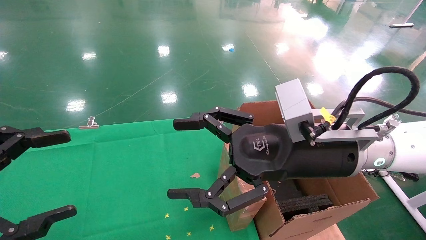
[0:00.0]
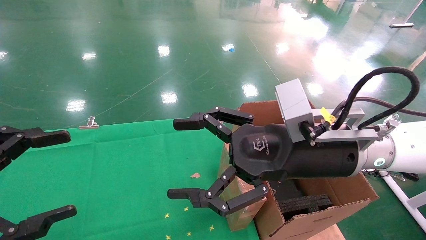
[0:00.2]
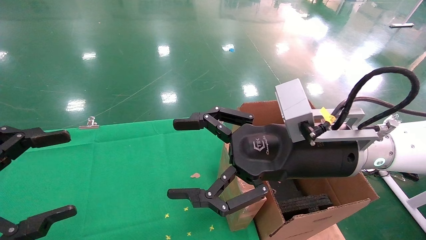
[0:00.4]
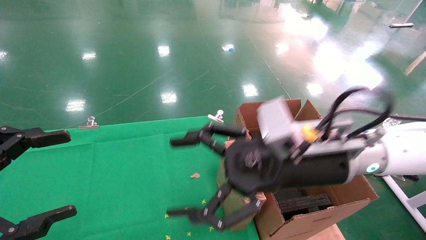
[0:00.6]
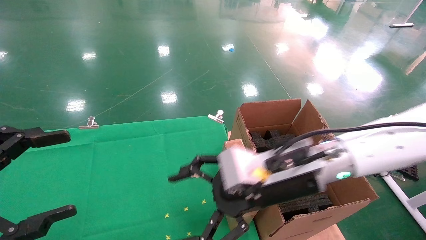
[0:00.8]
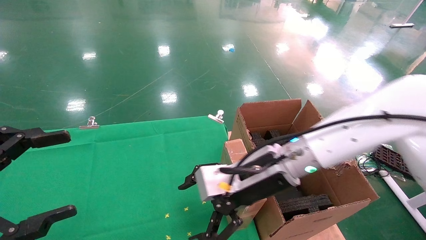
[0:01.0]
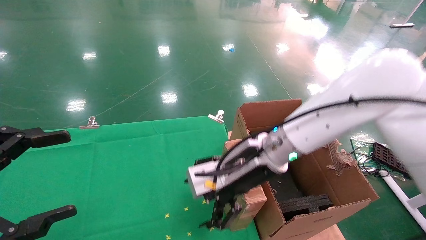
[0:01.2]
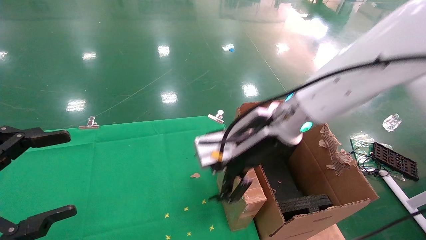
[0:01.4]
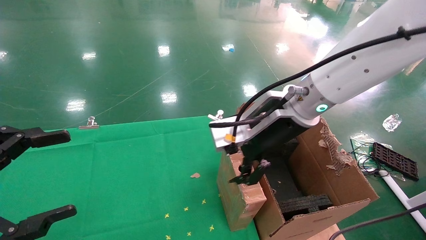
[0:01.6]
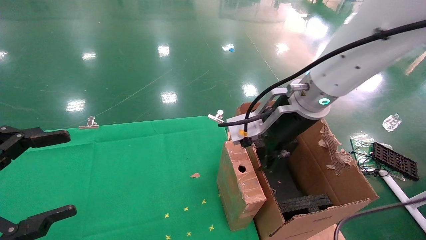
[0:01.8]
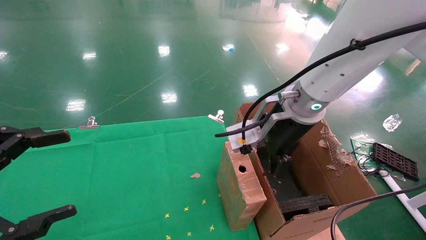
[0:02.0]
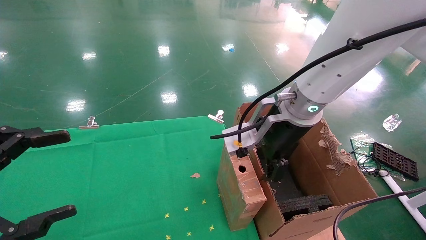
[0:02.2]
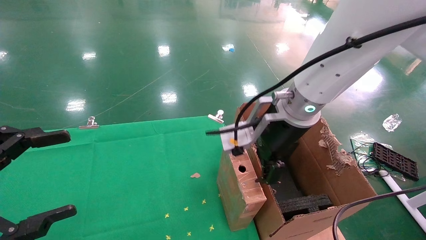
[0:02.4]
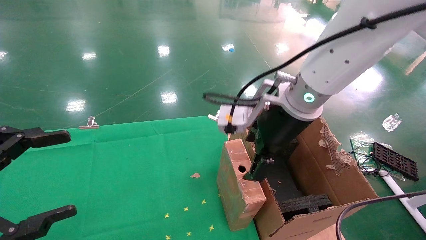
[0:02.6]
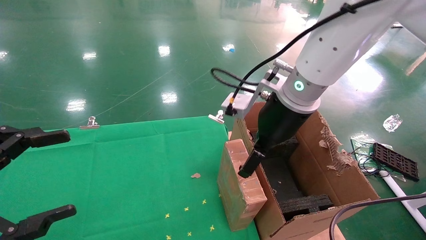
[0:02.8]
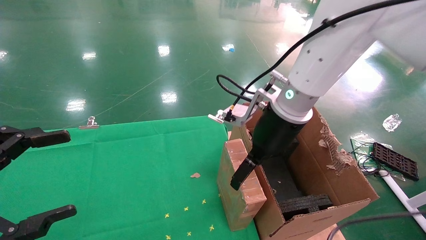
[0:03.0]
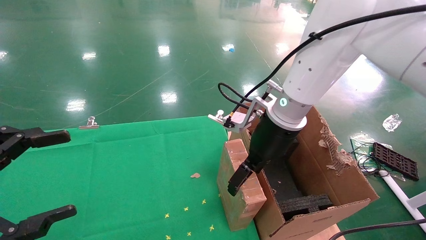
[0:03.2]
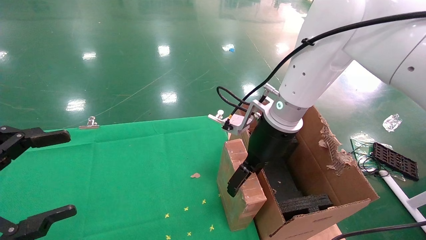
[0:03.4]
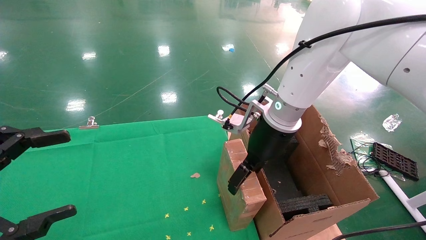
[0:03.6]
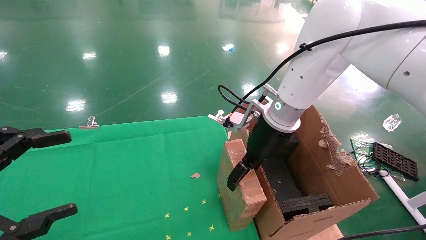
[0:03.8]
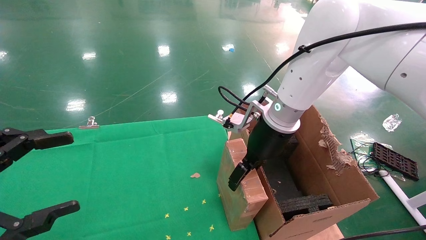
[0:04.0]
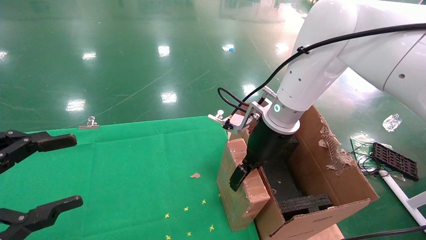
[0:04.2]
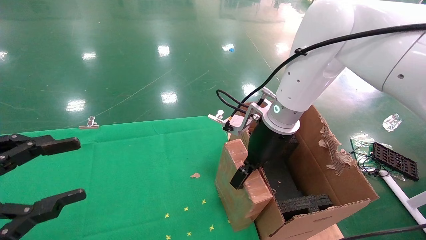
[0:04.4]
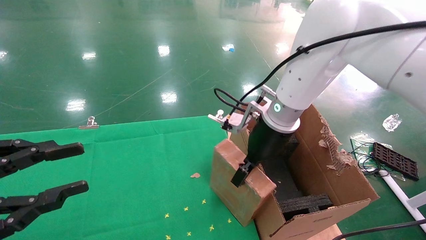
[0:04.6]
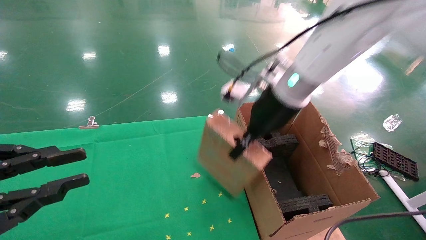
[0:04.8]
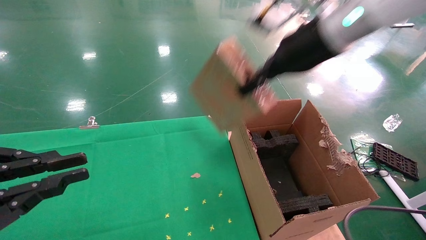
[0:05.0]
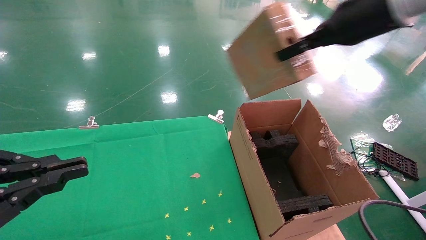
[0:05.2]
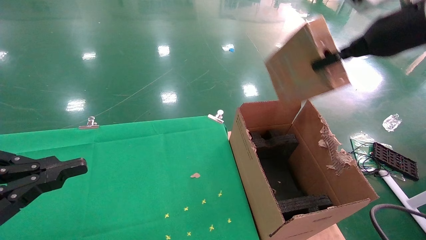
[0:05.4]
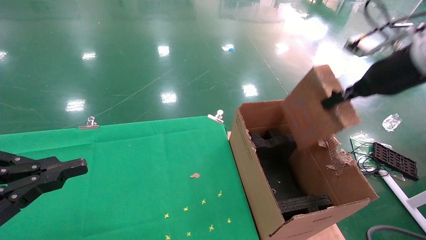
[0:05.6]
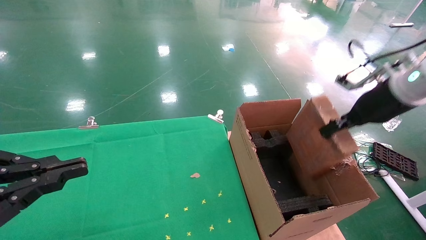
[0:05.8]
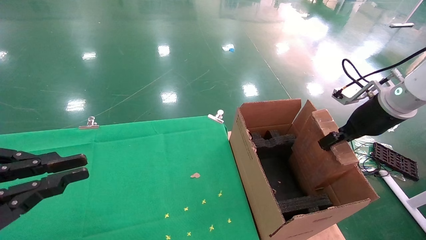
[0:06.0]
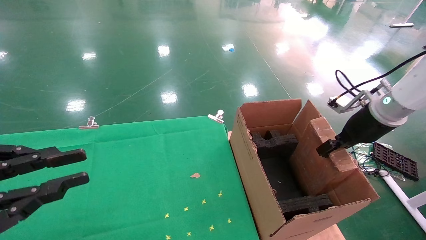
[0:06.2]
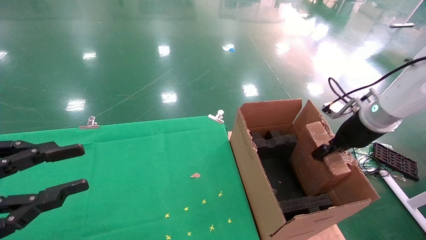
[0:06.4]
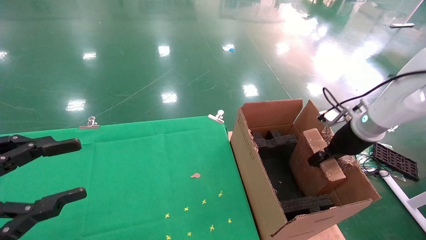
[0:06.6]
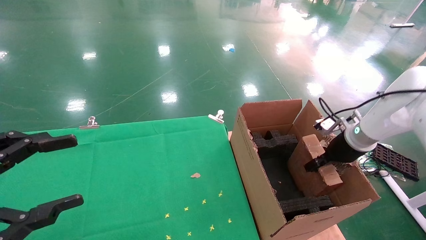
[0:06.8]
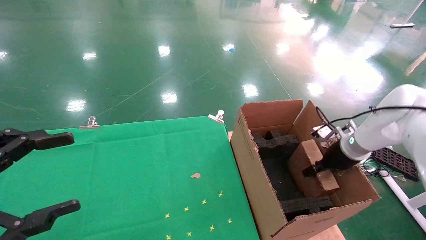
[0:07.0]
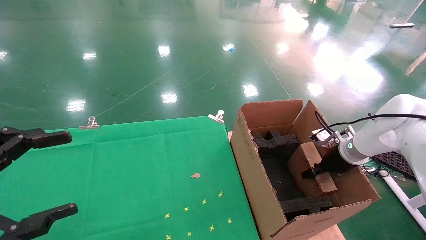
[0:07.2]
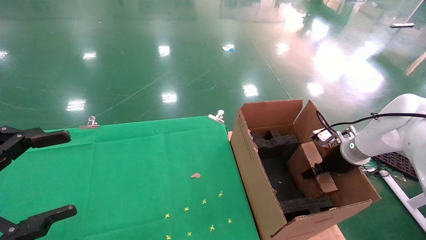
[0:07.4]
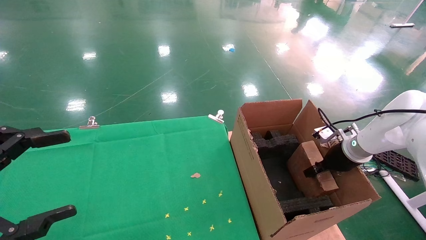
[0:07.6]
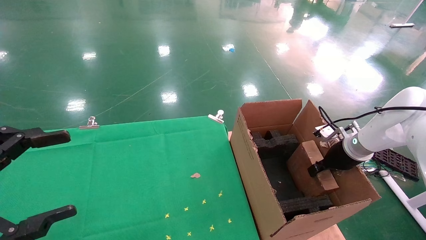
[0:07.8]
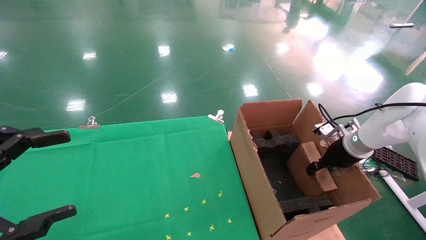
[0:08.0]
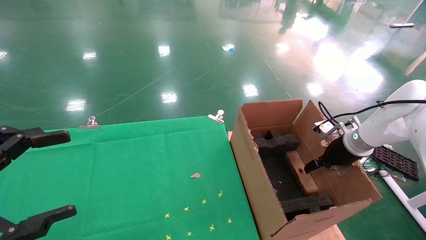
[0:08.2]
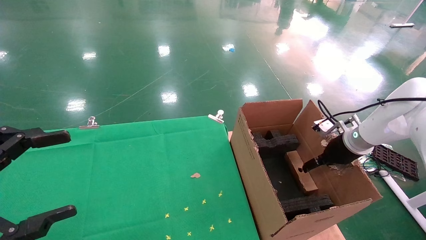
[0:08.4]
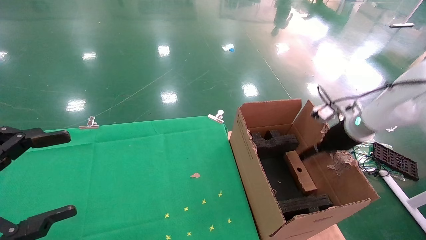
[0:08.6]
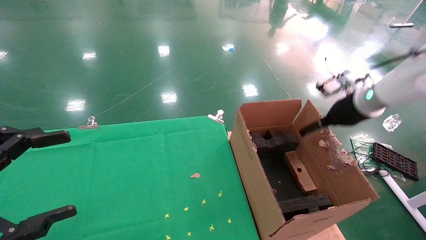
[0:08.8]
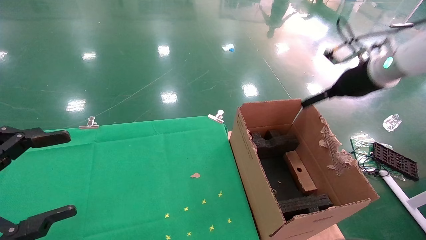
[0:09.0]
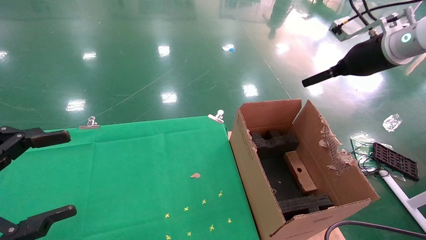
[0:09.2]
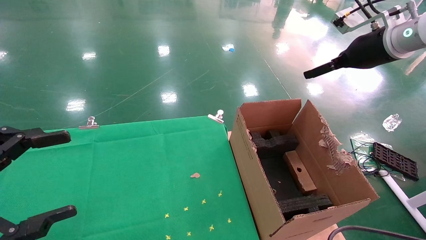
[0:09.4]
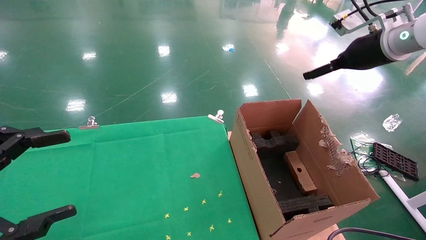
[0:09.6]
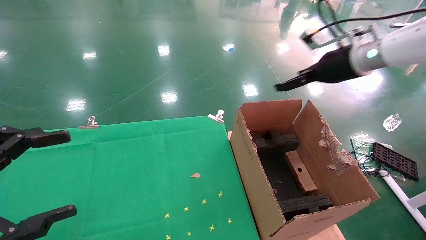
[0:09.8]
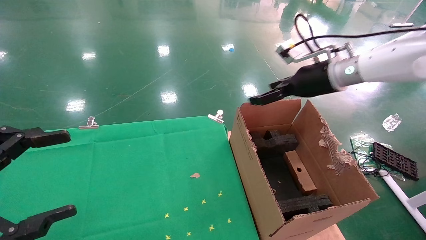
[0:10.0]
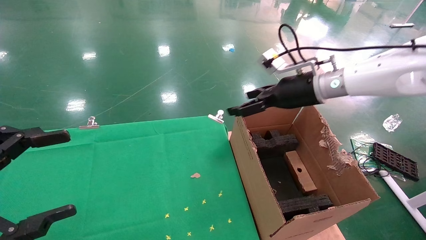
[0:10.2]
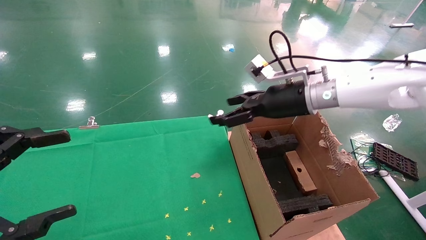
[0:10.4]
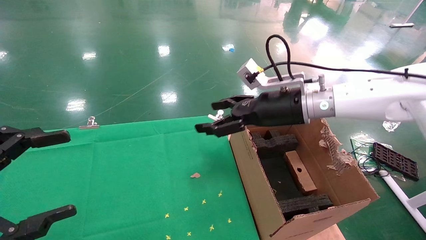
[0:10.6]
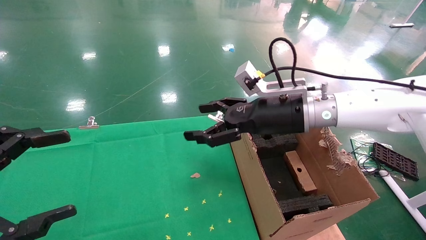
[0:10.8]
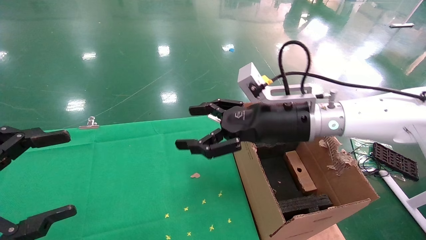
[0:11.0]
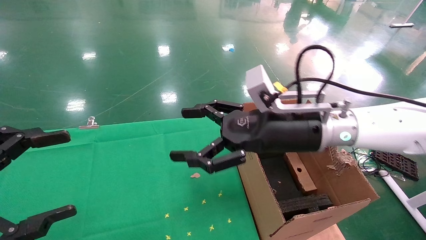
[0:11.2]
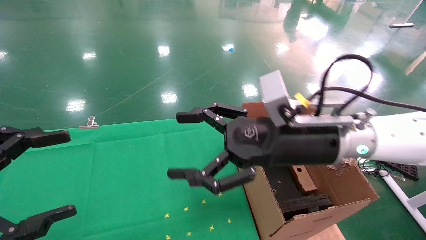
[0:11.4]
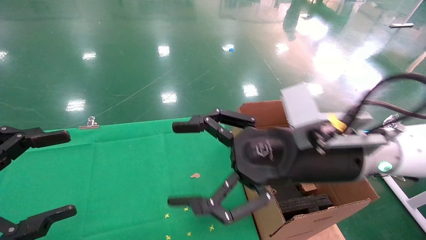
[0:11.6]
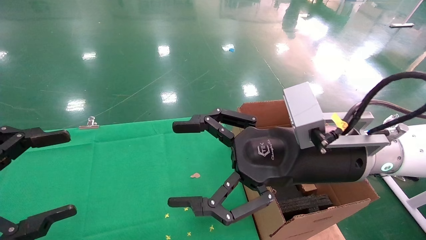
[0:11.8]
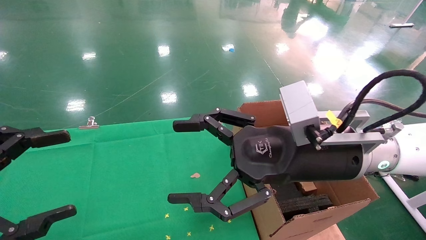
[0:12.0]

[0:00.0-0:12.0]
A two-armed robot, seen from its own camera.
Task of the whole recording: using a robotic arm to pick up a cardboard box and palace it the carton.
Step, 0:00.6 to 0:04.8: Pick up the mouse and the power cord paper box.
Step, 0:05.0 to 0:08.4: Place the mouse and the power cord paper box into the container.
0:00.0 to 0:01.6: The right gripper moves forward, about 10 cm.
0:03.0 to 0:04.4: The right gripper closes its fingers.
0:04.4 to 0:06.0: The left gripper closes up, while the right gripper shifts roughly 25 cm to the right, and closes up.
0:06.0 to 0:07.6: The left gripper opens, while the right gripper is displaced downward by approximately 15 cm.
0:07.6 to 0:09.0: The right gripper shifts approximately 20 cm upward, and opens its fingers.
0:09.0 to 0:10.4: The right gripper shifts approximately 15 cm to the left.
0:10.4 to 0:12.0: The right gripper heads backward, covering about 15 cm.

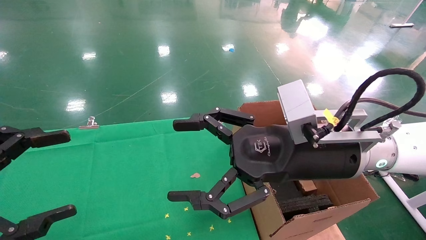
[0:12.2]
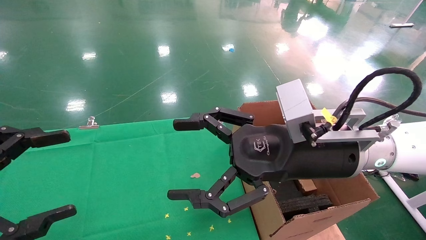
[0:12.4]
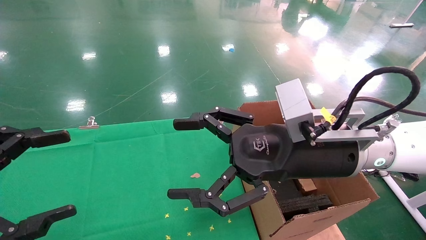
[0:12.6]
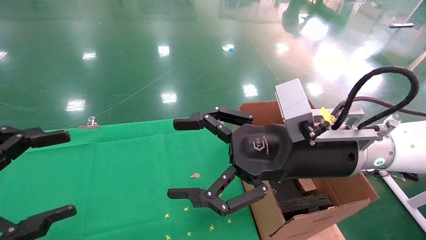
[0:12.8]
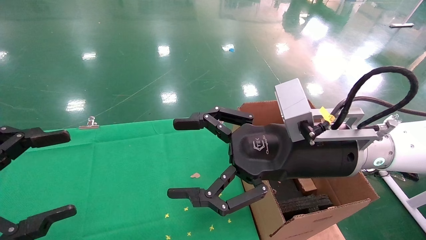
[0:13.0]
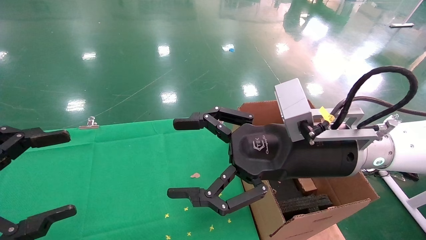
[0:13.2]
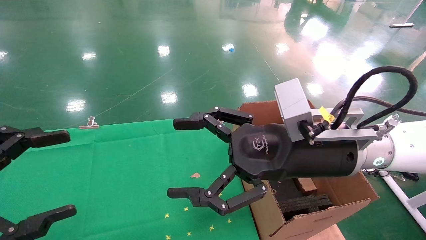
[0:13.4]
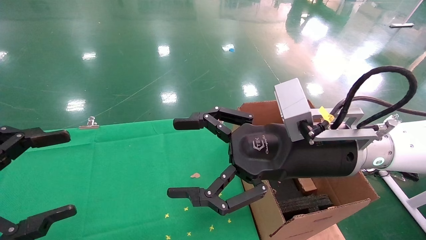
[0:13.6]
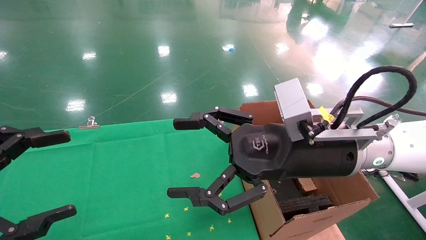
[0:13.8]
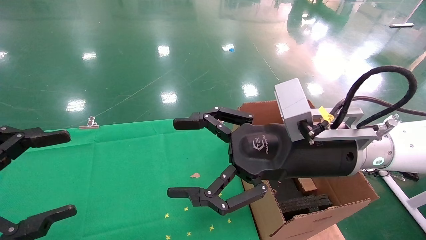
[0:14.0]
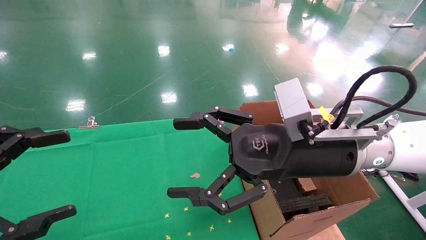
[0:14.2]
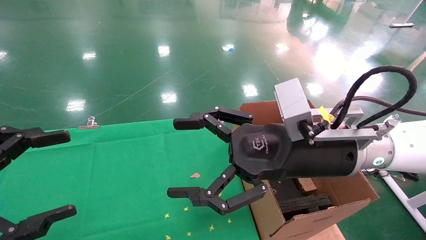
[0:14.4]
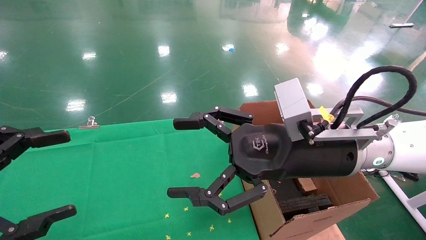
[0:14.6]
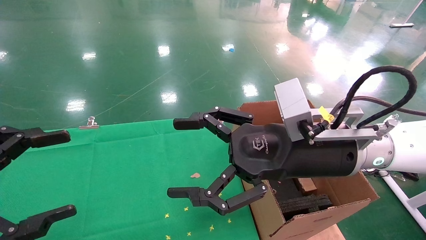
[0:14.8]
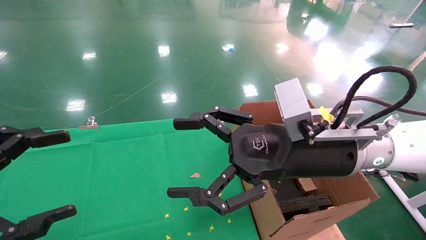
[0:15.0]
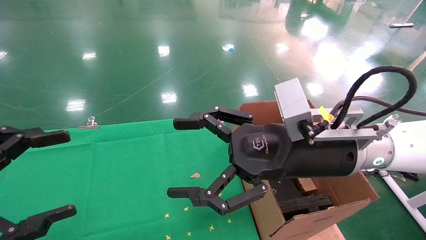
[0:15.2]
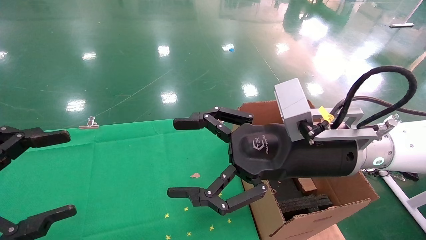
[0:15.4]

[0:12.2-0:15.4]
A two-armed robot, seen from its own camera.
Task of the whole recording: using a robotic arm to pick up a cardboard box and palace it the carton.
0:12.2 to 0:15.4: Both grippers stay put.
